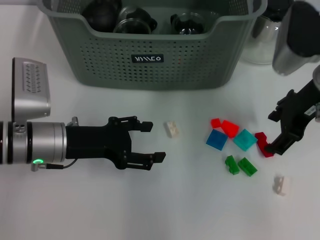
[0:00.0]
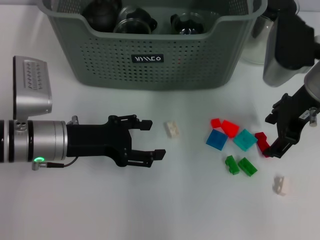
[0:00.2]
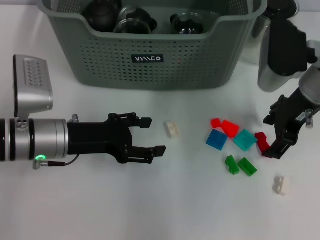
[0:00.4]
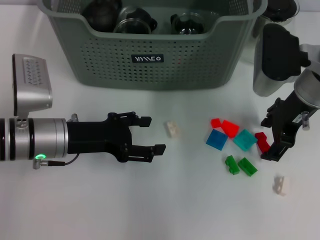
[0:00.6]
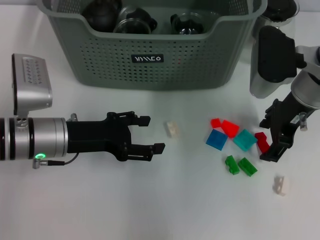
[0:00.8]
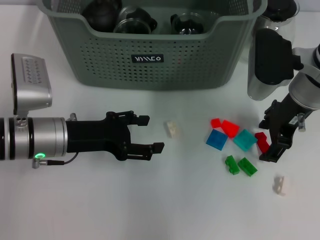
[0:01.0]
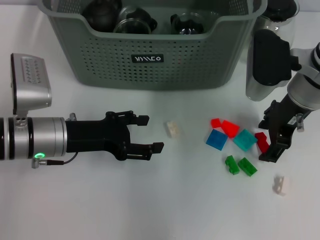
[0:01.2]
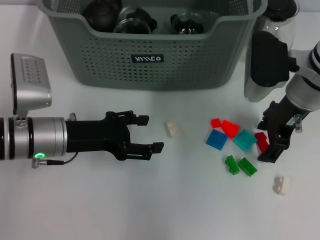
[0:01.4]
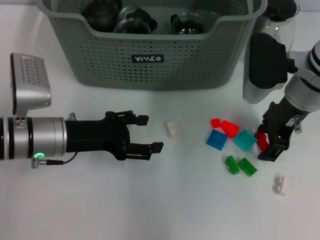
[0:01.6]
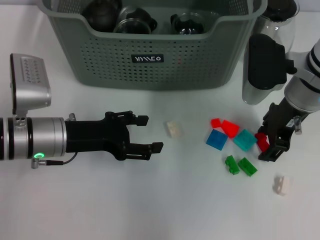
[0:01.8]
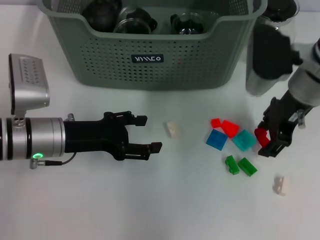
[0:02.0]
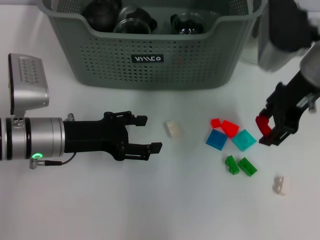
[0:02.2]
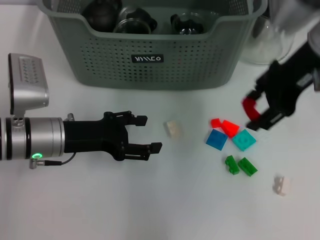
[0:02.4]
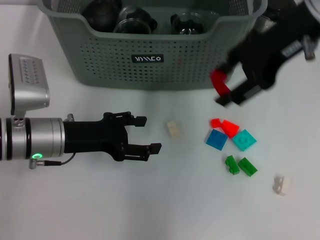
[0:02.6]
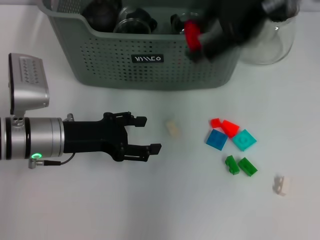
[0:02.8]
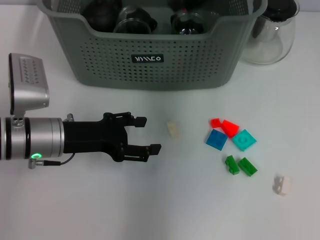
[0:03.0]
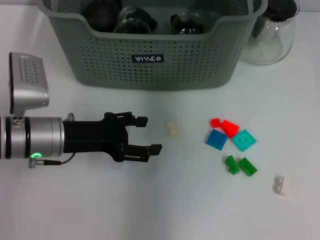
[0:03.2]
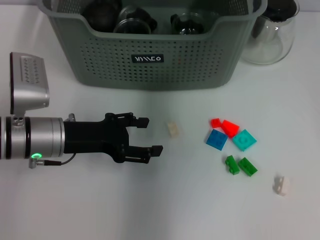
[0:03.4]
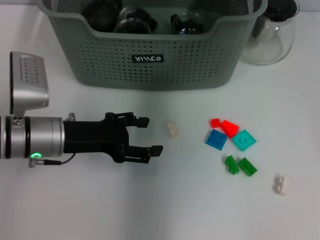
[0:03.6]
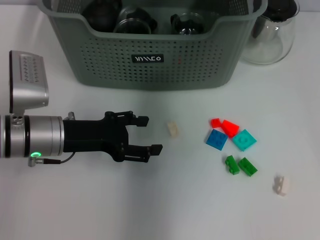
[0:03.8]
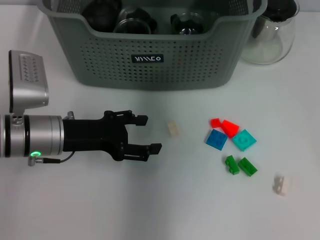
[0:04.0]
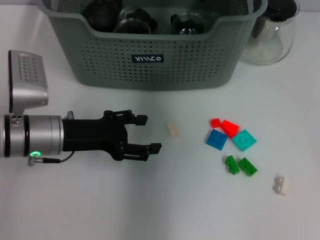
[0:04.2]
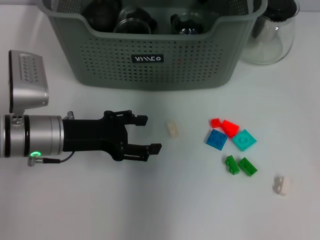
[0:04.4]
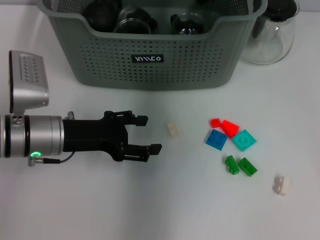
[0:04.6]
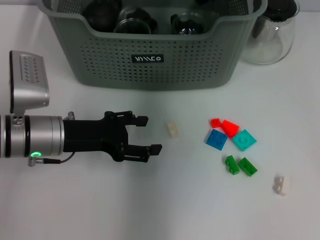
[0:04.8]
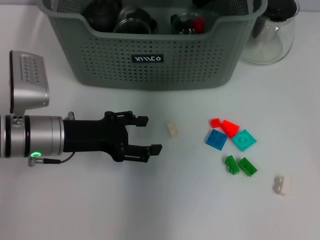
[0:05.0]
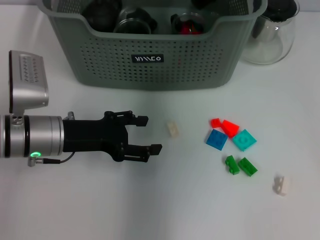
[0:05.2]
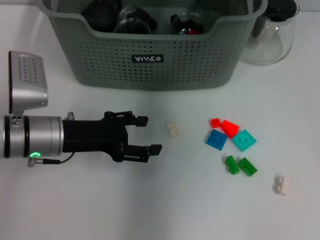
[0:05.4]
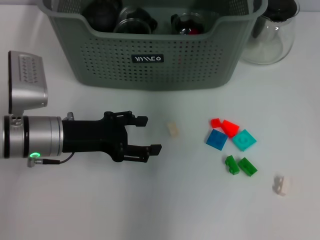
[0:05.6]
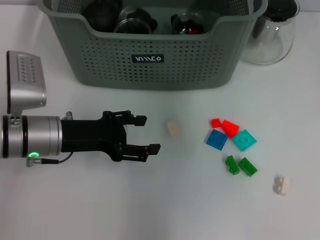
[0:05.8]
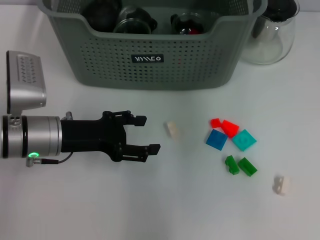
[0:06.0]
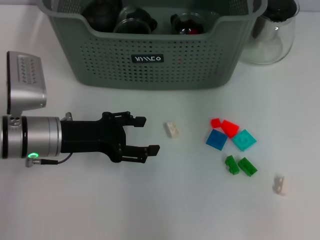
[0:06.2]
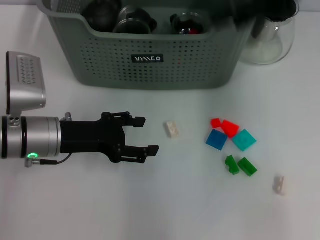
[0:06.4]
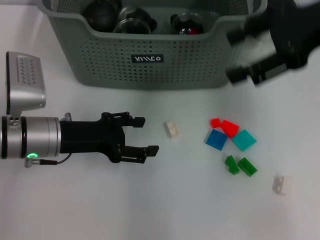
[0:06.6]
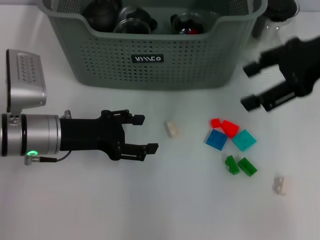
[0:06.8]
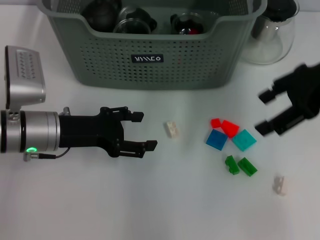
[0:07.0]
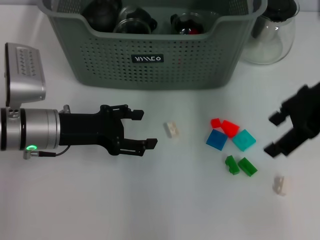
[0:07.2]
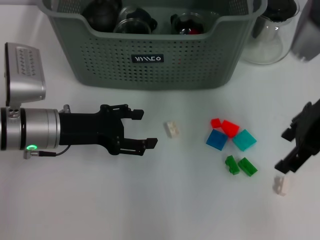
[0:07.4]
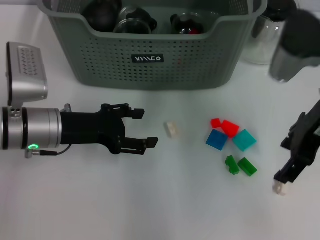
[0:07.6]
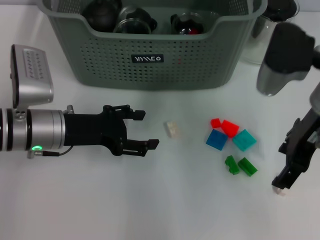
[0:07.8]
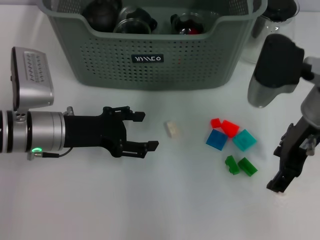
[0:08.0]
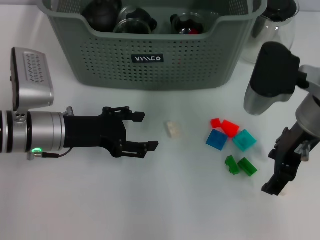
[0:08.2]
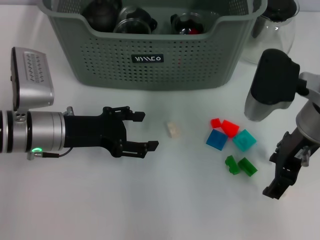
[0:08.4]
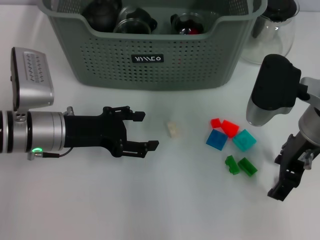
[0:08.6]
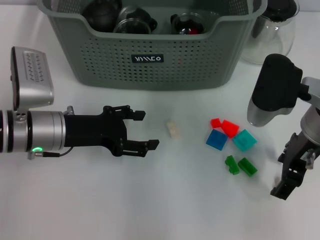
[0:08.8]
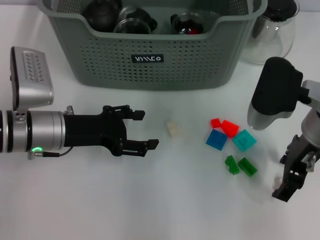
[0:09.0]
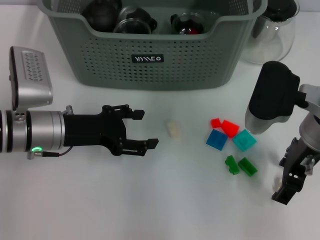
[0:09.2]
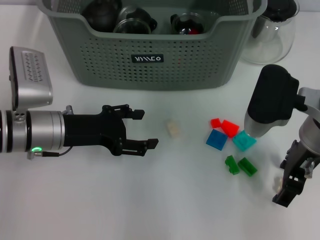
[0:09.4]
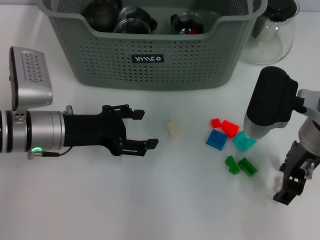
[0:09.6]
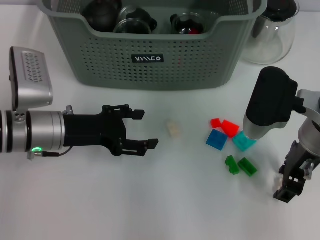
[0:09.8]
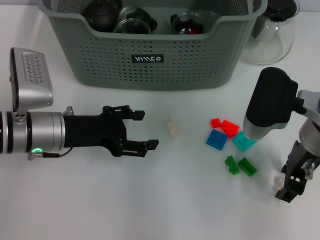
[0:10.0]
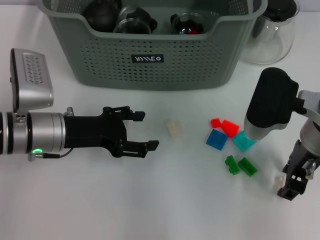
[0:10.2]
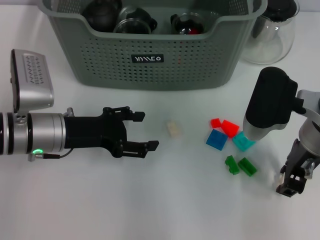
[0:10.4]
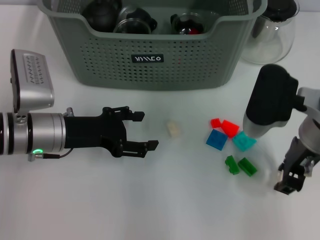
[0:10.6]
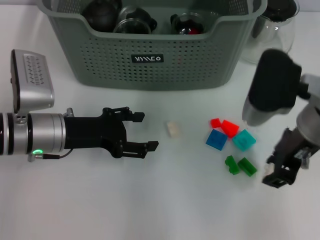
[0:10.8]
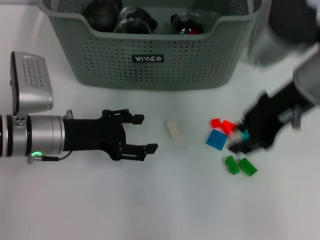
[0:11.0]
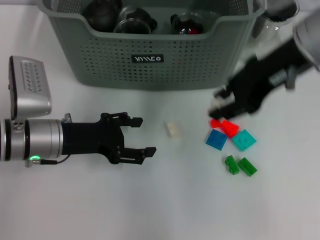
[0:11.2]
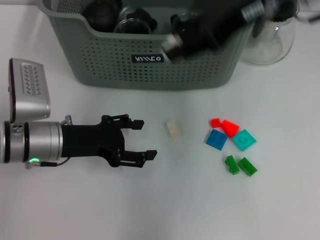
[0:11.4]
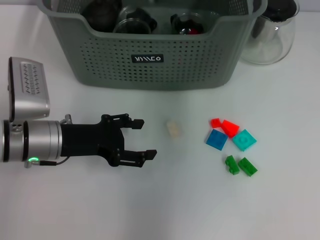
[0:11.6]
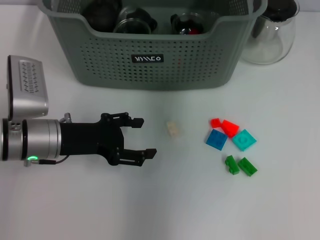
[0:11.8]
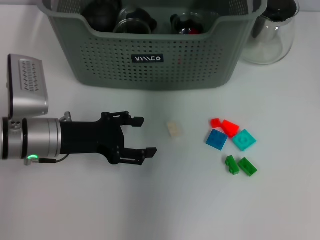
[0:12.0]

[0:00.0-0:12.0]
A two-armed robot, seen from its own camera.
Task of the whole recording: pick up the teacup on the table and place it into the storage bin, pick up the block on the table and place it into the storage bin.
Step, 0:02.0 to 0:05.2: Place the red block in the storage box with right gripper.
Step, 0:05.4 to 0:10.4: Grasp the white block with right gripper.
0:00.0 to 0:01.6: There are only small adjustments of the grippers.
0:01.6 to 0:03.0: The right gripper heads upward, covering roughly 20 cm.
0:03.0 to 0:04.4: The right gripper shifts approximately 10 cm downward and forward.
0:04.4 to 0:06.0: The right gripper shifts some 15 cm upward and backward.
0:06.0 to 0:07.6: The right gripper moves downward and backward, about 15 cm.
0:07.6 to 0:09.0: The right gripper moves approximately 5 cm.
0:09.0 to 0:10.4: The right gripper closes.
0:10.4 to 0:12.0: The right gripper moves forward and upward, about 25 cm.

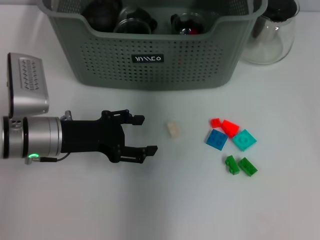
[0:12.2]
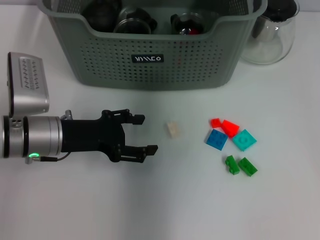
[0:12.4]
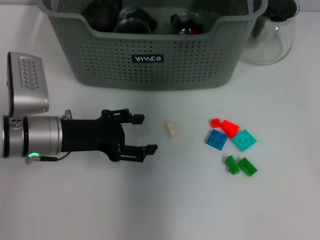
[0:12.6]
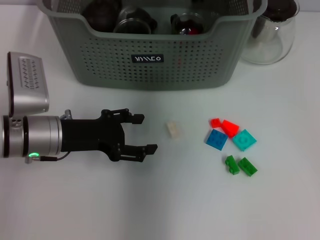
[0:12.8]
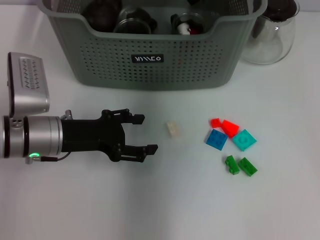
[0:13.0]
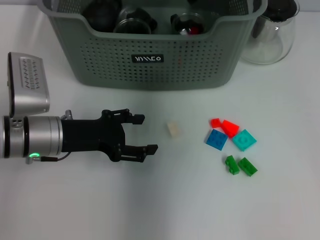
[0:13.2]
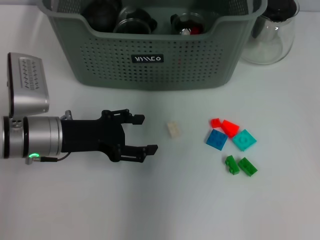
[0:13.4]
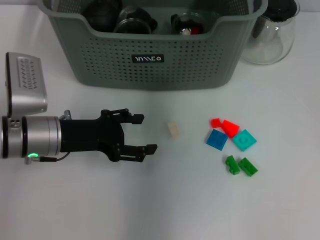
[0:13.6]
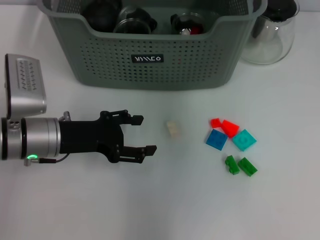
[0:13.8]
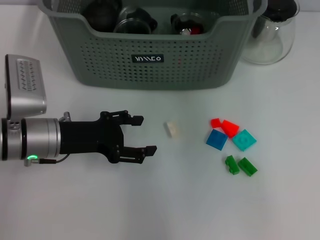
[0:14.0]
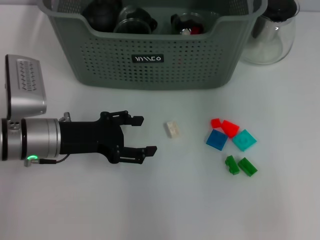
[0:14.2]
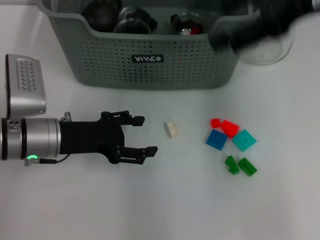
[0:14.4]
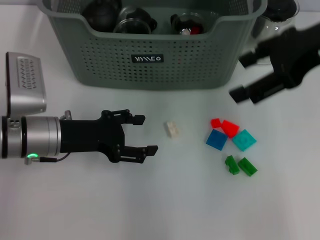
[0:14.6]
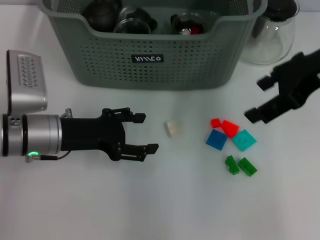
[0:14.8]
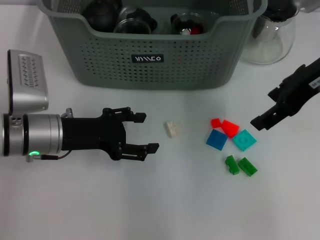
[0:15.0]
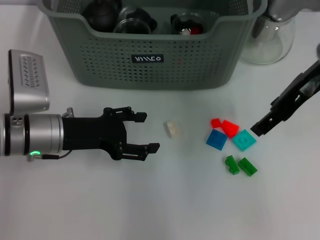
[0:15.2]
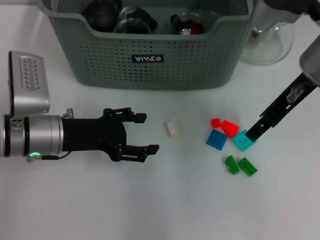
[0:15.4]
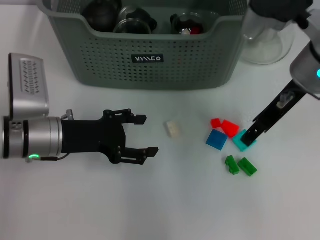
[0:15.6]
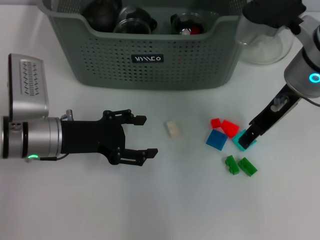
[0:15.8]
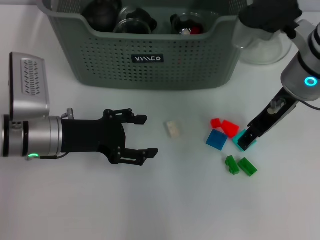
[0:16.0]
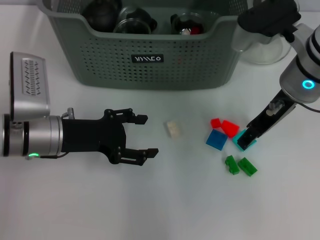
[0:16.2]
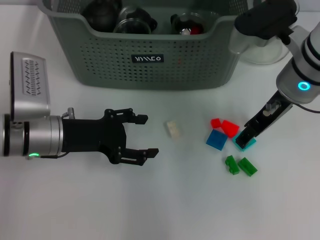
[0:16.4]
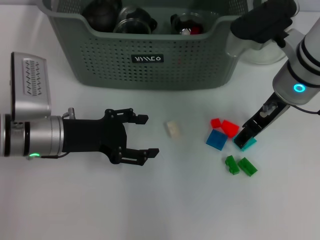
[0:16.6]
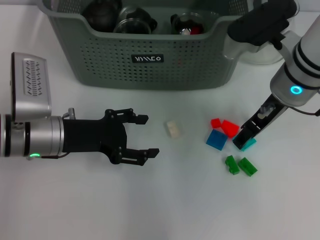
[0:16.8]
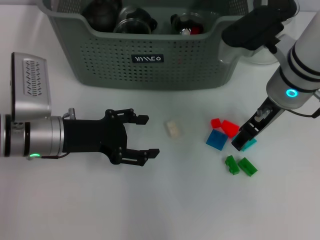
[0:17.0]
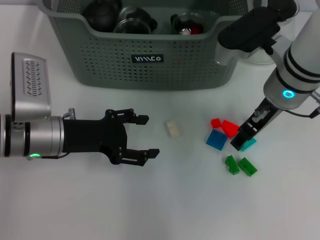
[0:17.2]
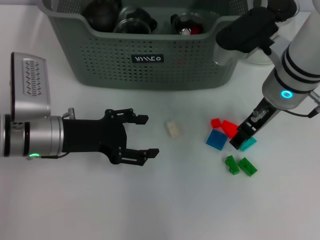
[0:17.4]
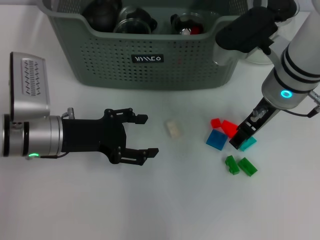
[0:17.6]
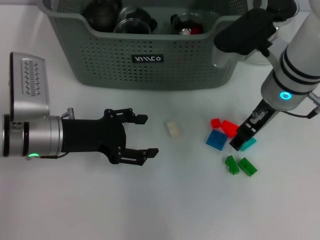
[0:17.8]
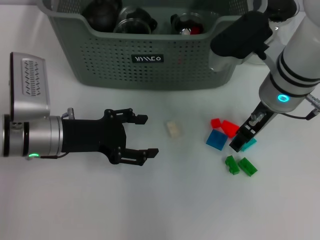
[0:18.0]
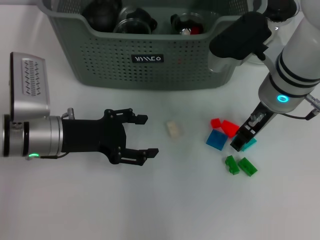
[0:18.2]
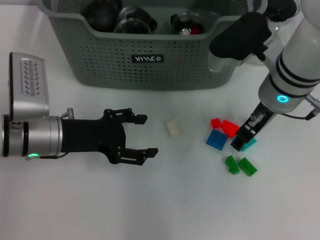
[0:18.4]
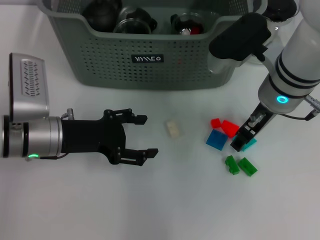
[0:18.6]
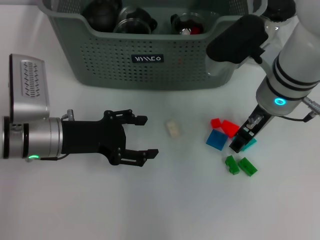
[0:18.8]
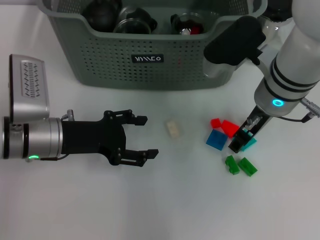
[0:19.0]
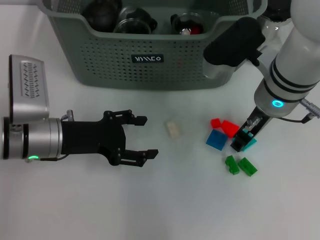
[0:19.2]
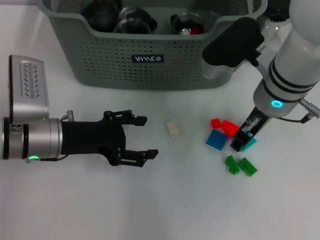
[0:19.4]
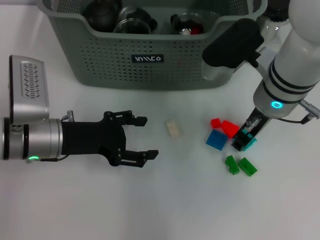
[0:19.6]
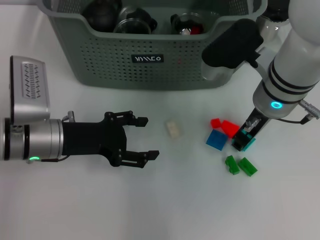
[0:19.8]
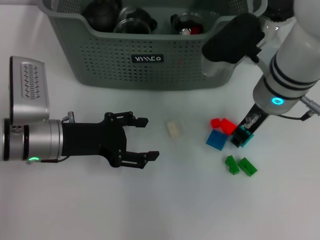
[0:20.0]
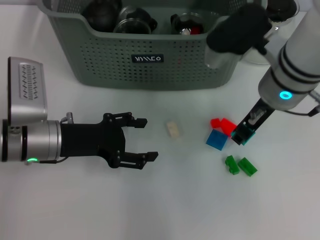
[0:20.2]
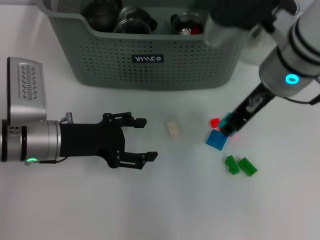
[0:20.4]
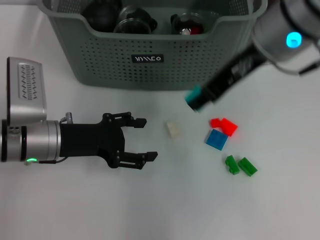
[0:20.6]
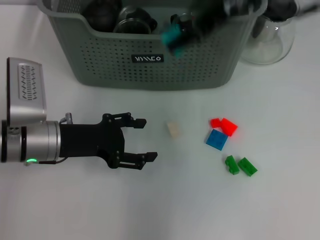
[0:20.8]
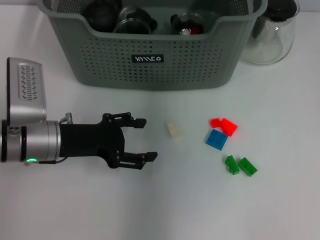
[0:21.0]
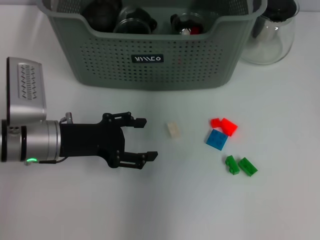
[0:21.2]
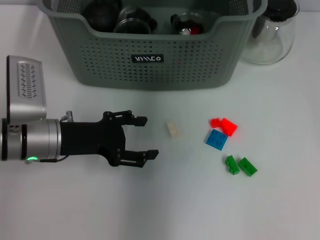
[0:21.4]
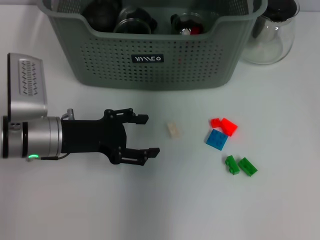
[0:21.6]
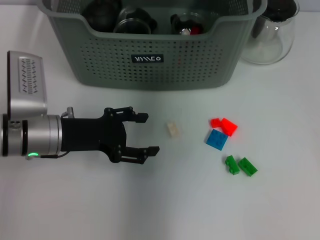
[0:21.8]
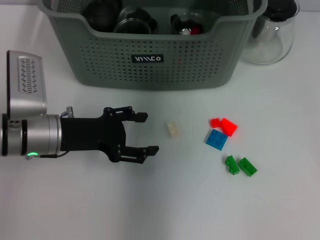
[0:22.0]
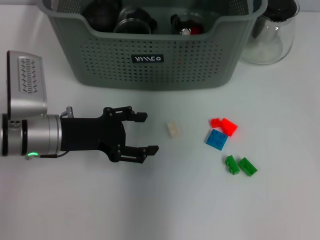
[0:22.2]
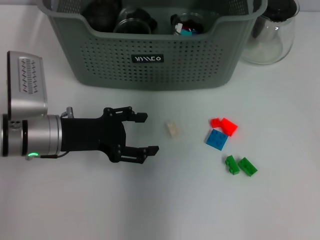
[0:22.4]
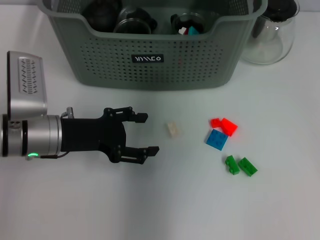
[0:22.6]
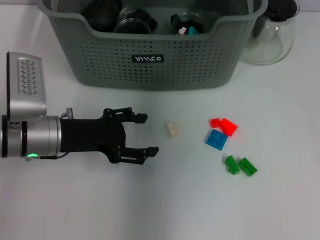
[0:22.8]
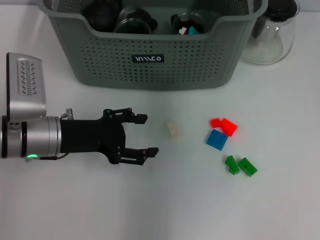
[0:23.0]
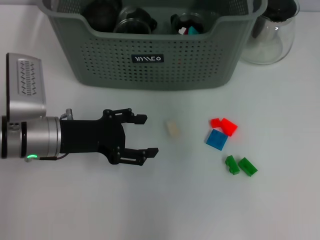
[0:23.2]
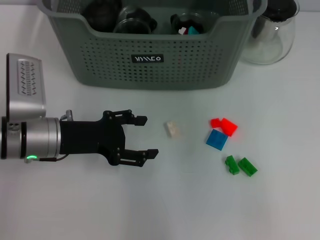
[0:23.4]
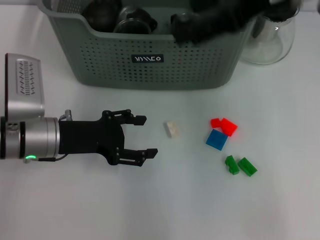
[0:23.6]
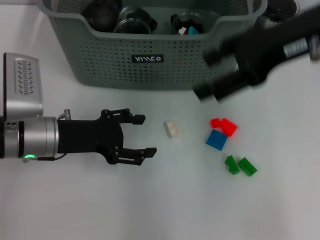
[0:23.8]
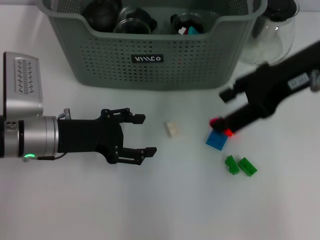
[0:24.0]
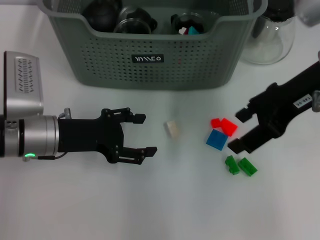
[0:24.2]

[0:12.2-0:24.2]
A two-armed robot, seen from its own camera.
Task of the whole recording: pick up the teacup on the table and place it into the storage bin, pick up the block on the table and place it into the storage bin.
Step, 0:13.2 to 0:19.6: Grasp the light blue block with right gripper.
Step, 0:19.8 to 0:22.2: Place the light blue block in the storage box with right gripper.
0:12.2 to 0:13.8: The right gripper goes some 10 cm upward and backward, and opens its fingers.
0:13.8 to 0:15.2: The right gripper is displaced downward, backward and to the right by about 15 cm.
0:15.2 to 0:16.6: The right gripper travels downward by approximately 5 cm.
0:16.6 to 0:18.2: The grippers make only small movements.
0:18.2 to 0:19.8: Both grippers stay put.
0:19.8 to 0:21.2: The right gripper shifts approximately 20 cm upward and forward.
0:21.2 to 0:22.6: The right gripper moves downward, roughly 10 cm.
0:22.6 to 0:24.2: The right gripper is displaced backward and to the right by approximately 20 cm.
